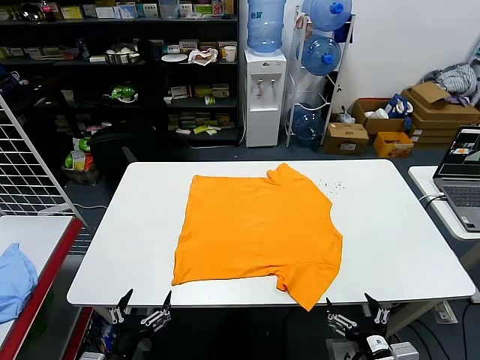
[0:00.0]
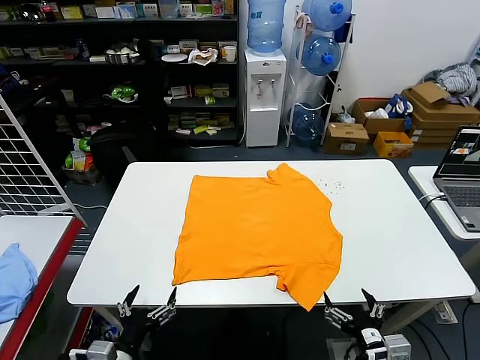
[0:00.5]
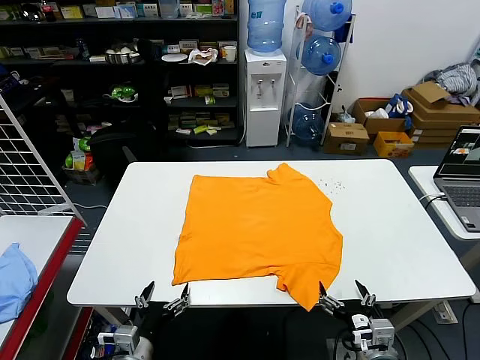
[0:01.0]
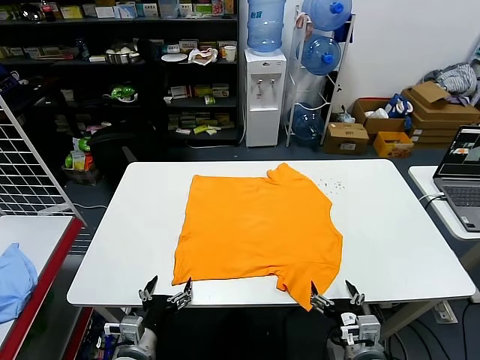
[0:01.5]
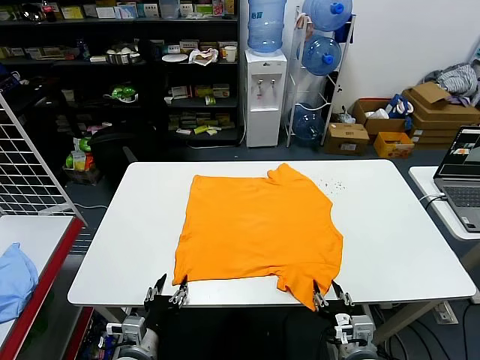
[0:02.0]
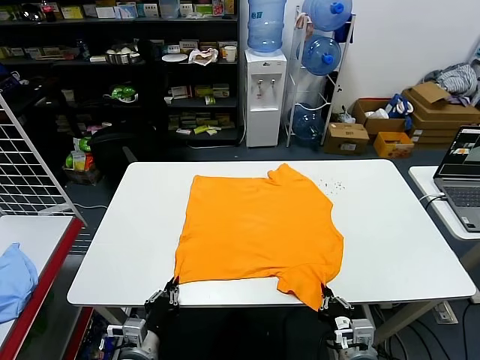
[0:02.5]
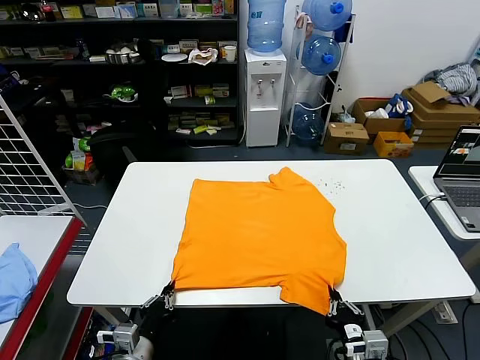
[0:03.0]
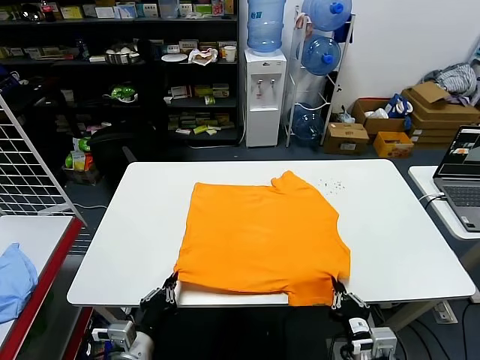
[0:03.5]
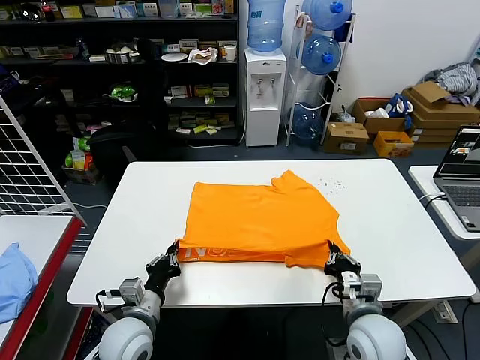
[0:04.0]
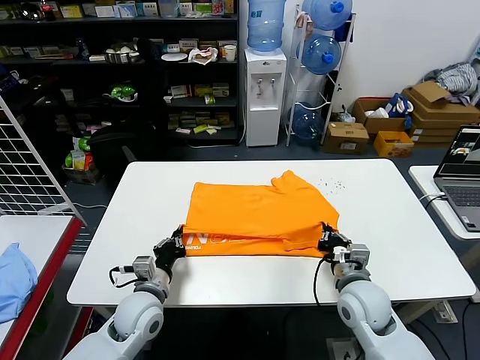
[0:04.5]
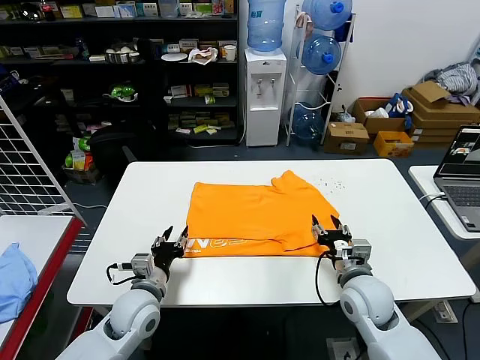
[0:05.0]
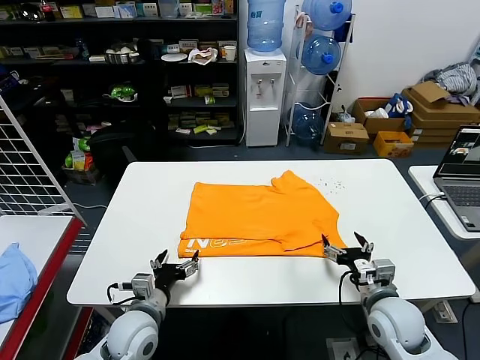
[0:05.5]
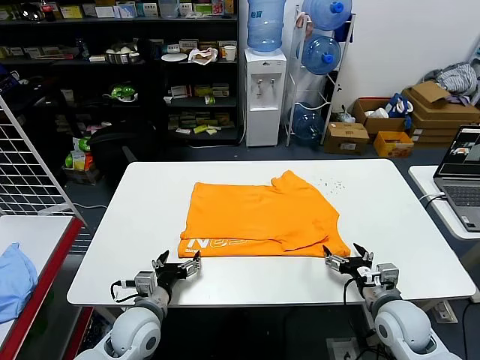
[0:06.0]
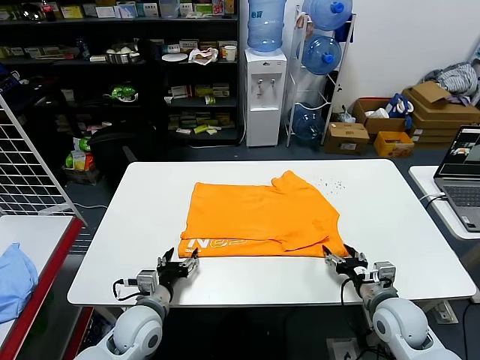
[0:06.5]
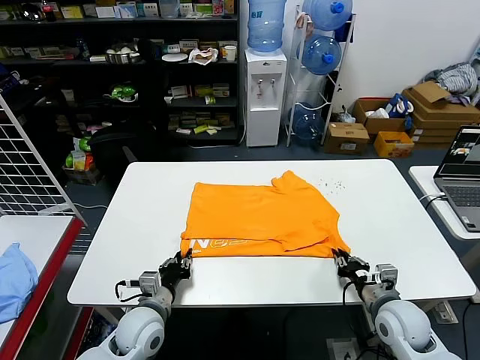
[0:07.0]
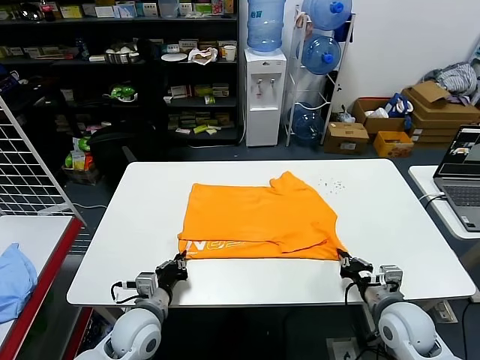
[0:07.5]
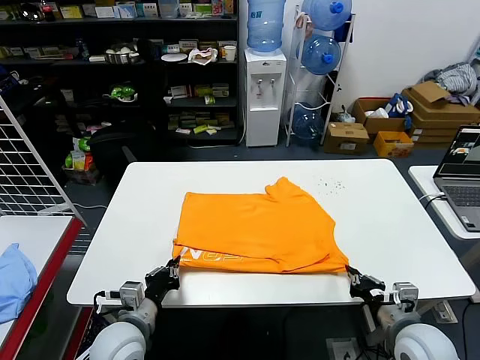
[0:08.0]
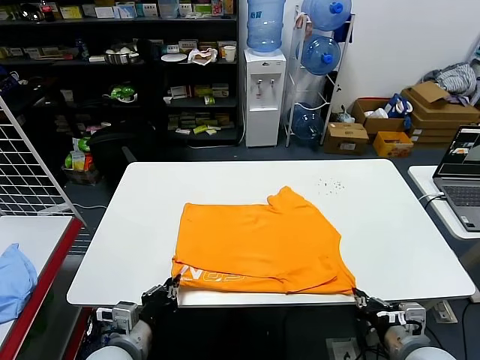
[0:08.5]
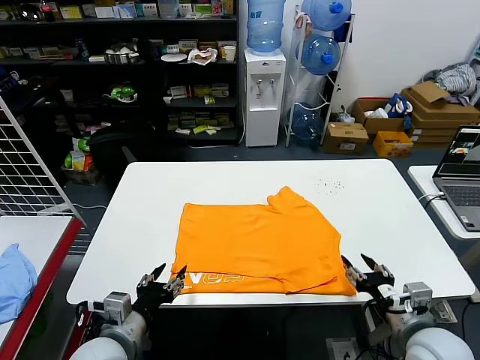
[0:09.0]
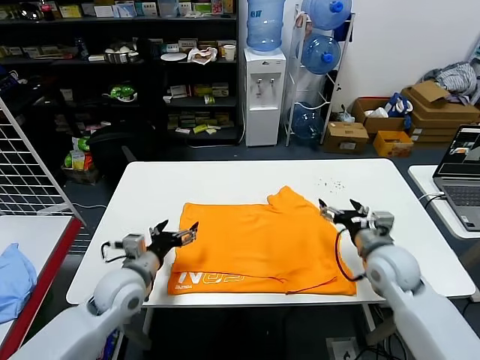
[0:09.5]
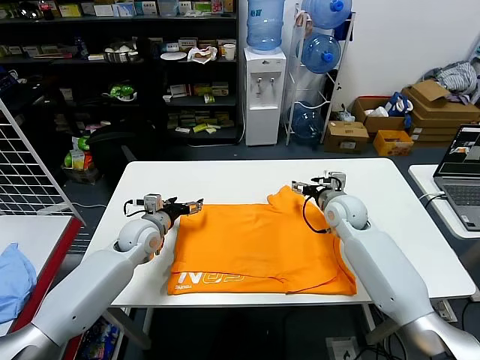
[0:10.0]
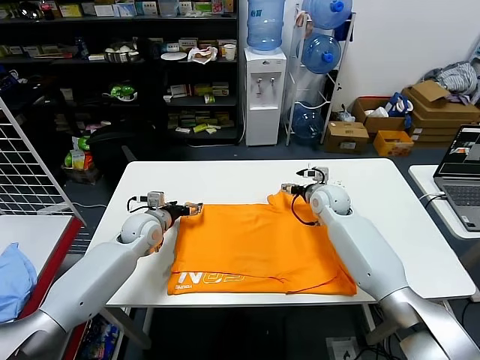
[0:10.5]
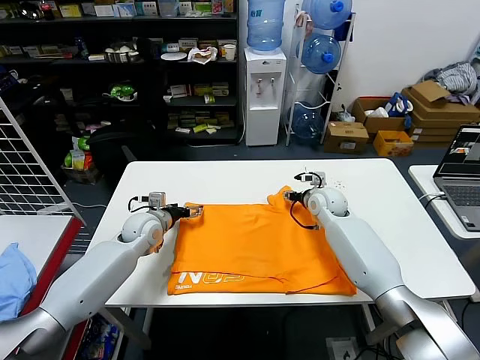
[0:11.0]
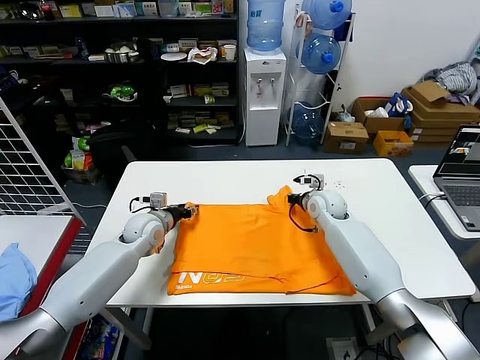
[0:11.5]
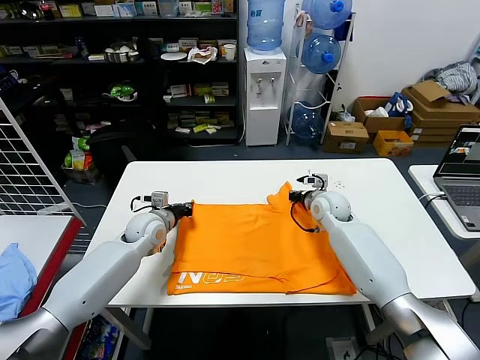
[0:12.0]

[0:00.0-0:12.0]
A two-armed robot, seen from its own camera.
Task of the whole recording: fold and organize the clothes.
Step, 0:00.0 to 0:02.5: use both grippers simultaneously to clamp the lower edge of the clothing fabric.
Step, 0:03.0 to 0:04.5: use both grippers to drag the lower edge of the fabric forward and fold it over the upper edge.
Step, 0:05.0 to 0:08.5: Drag the clothes downward with both gripper.
Step, 0:09.0 to 0:11.5: use both grippers simultaneously to clamp the upper edge of the clothing fabric.
0:02.0 to 0:04.0: The grippers both shift forward by about 10 cm. The right gripper closes its fingers; the left gripper closes its fingers.
0:04.0 to 0:06.0: The left gripper opens. Meanwhile the right gripper moves to the right, roughly 10 cm, and opens its fingers.
0:06.0 to 0:08.0: The right gripper is displaced backward by about 5 cm, and closes up. The left gripper ends up some 5 cm from where it was, and closes.
0:08.0 to 0:10.0: Both grippers travel together forward, roughly 25 cm. The left gripper opens up; the right gripper opens its fingers.
0:10.0 to 0:12.0: The left gripper closes its fingers. The right gripper closes.

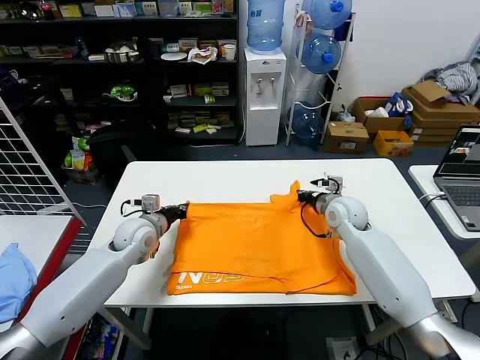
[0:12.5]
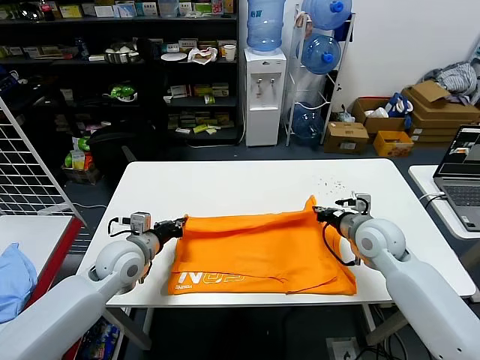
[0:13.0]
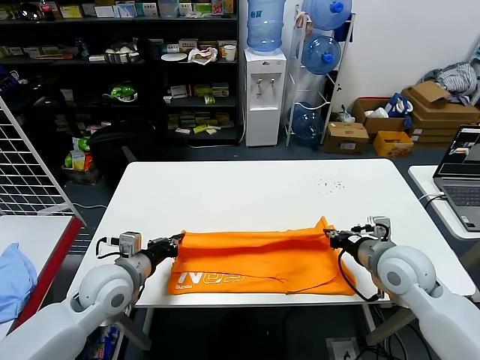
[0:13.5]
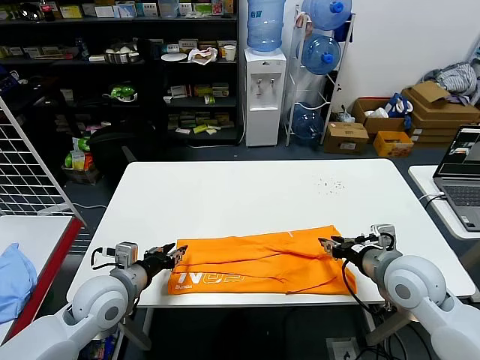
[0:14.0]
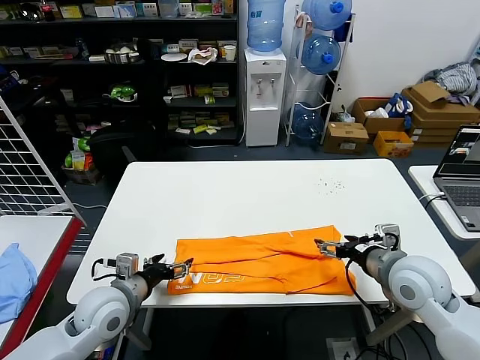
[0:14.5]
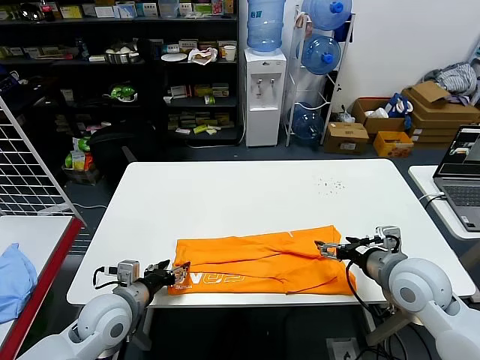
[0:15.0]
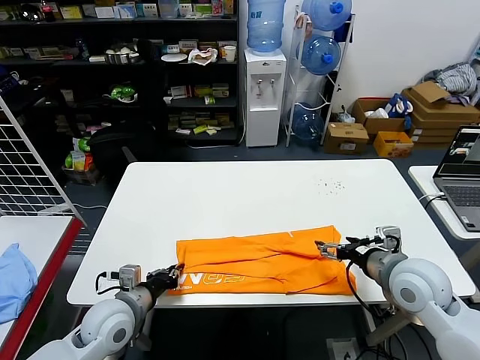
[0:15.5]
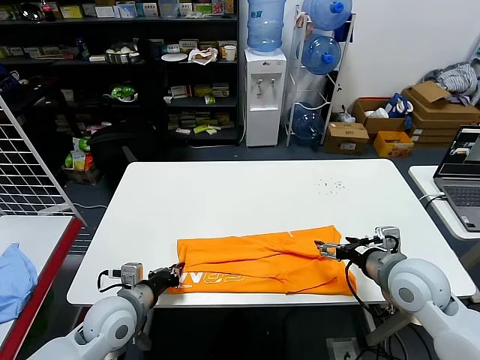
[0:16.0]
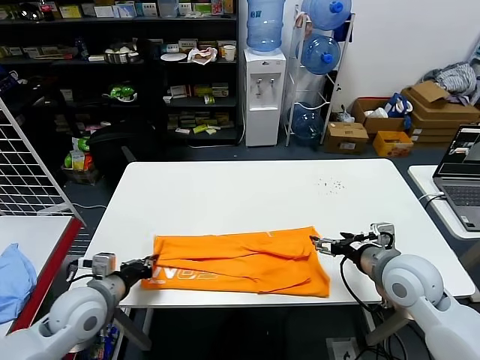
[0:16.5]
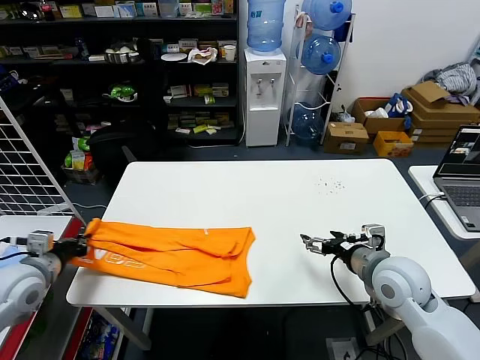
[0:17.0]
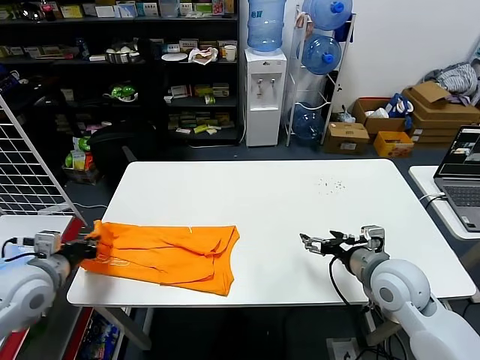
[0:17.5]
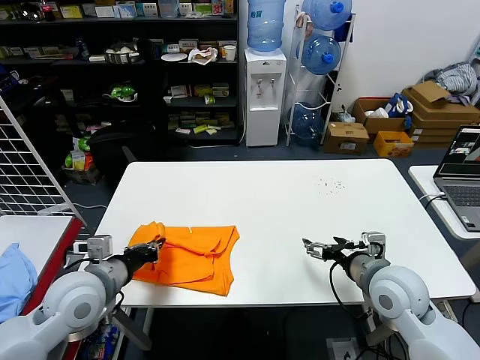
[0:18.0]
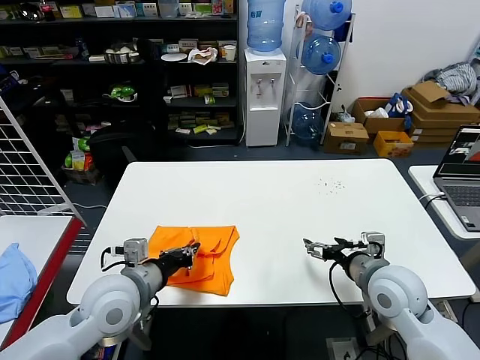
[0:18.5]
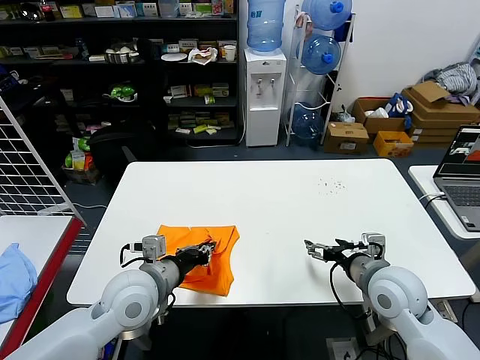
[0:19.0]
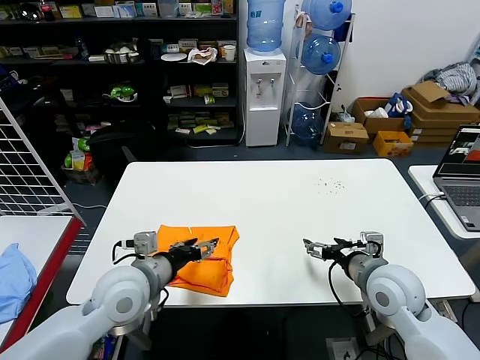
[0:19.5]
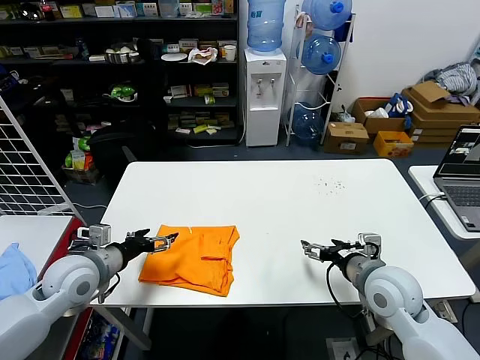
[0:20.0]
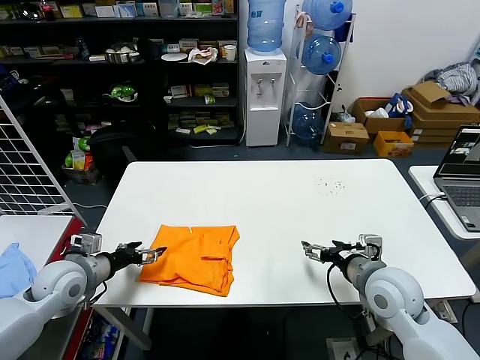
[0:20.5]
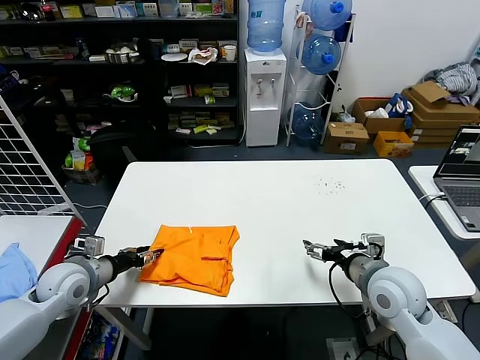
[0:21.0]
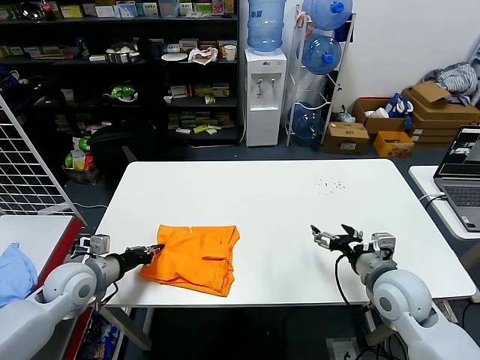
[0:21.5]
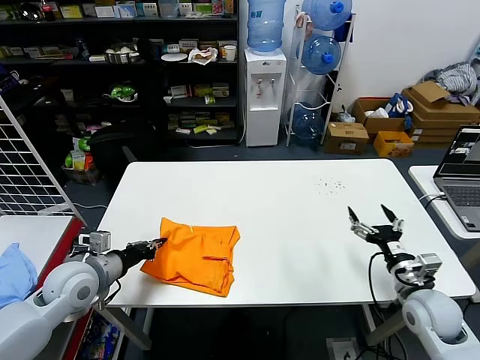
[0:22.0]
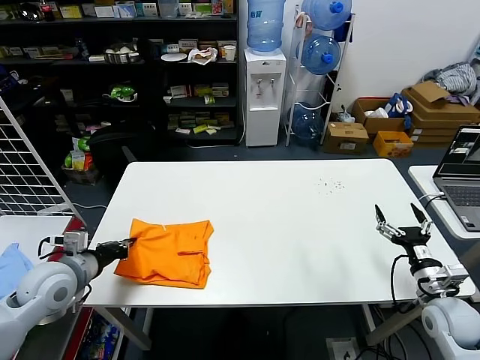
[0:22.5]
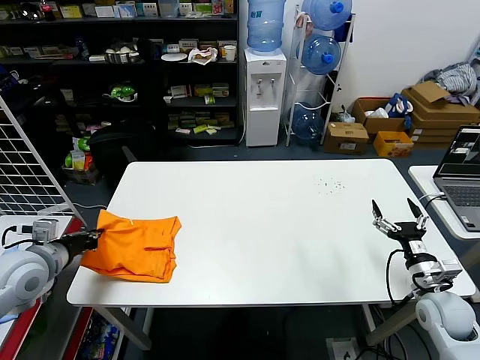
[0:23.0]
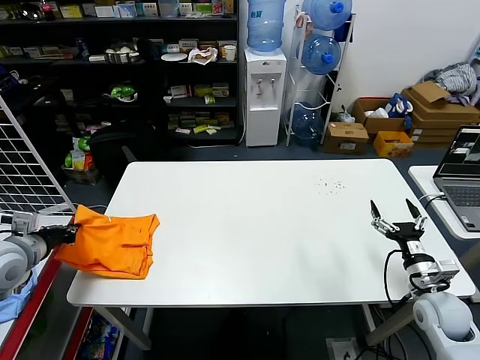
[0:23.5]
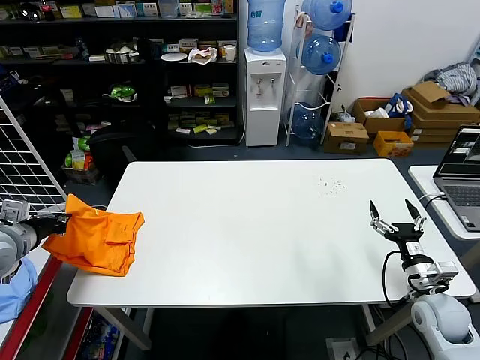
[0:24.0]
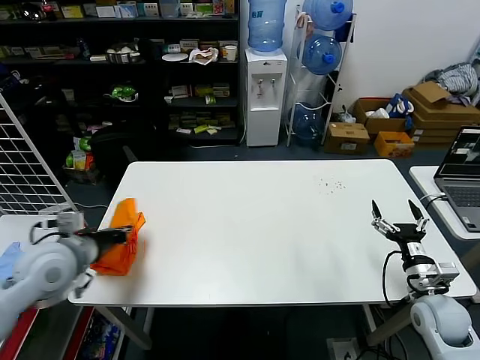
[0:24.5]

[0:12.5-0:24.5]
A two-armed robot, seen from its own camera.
Task of the whole recording: fold and organize the clothes.
Step, 0:12.5 to 0:13.5: use both grippers to drag the upper edge of the fabric backward and fold it over the lower edge.
Step, 0:14.0 to 0:15.5: use the left gripper to clamp the left edge of the fabric.
Step, 0:16.0 to 0:19.0: use the left gripper to drag the left edge of the fabric to the left and folds it over the right edge.
0:12.5 to 0:14.5: The grippers both shift backward by roughly 20 cm. The left gripper opens up. The right gripper opens up.
0:14.5 to 0:16.5: The left gripper closes its fingers.
0:16.5 to 0:18.5: The left gripper is displaced to the right and upward by some 10 cm.
0:18.5 to 0:20.5: The left gripper goes approximately 15 cm to the left and downward, and opens its fingers.
0:20.5 to 0:22.5: The right gripper heads to the right and downward, covering some 15 cm; the left gripper closes.
0:22.5 to 0:24.5: The left gripper is displaced upward by about 5 cm, and goes to the left and returns, roughly 10 cm each way.

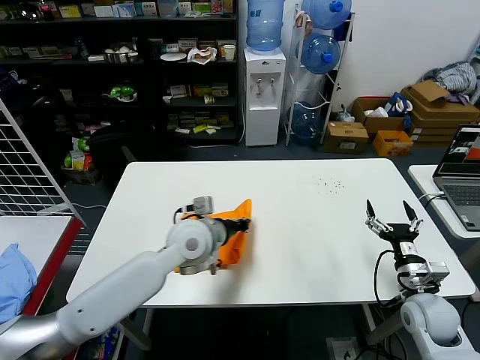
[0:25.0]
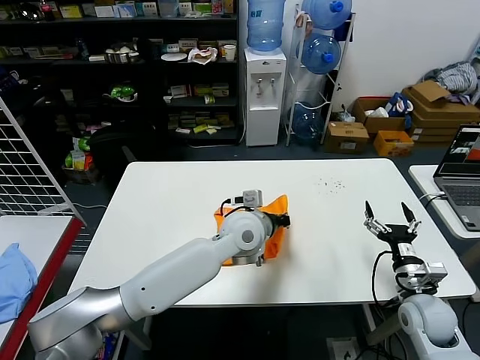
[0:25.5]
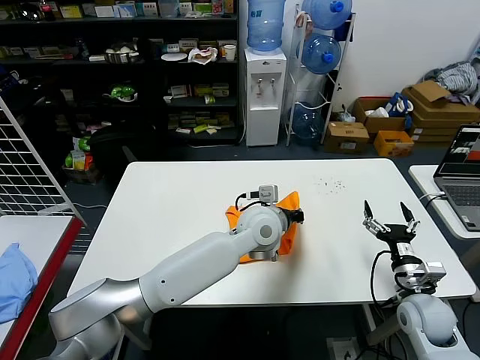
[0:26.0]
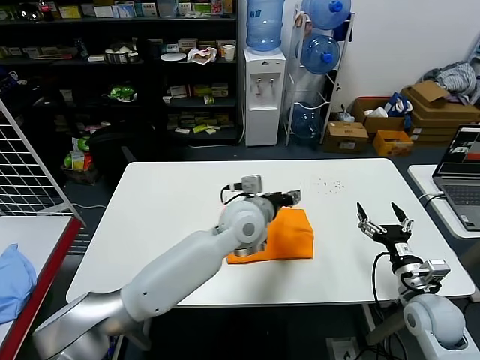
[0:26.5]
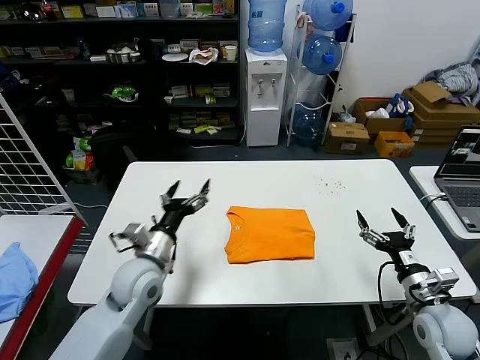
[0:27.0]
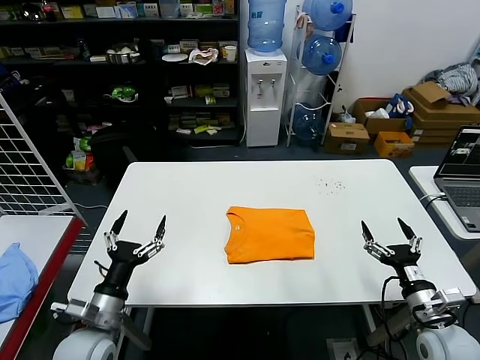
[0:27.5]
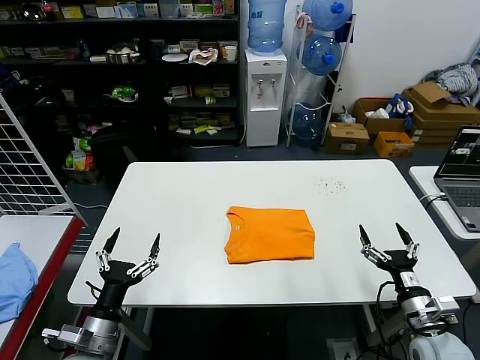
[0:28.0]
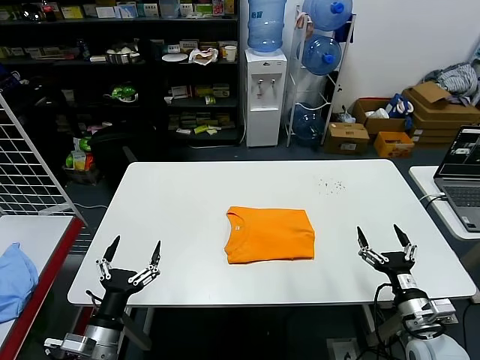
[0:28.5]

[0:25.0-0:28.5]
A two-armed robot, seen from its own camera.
Task of the whole recording: fold and organize the clothes.
0:25.0 to 0:27.0: The left gripper reaches roughly 15 cm to the right, then returns, and opens its fingers.
0:27.0 to 0:28.5: The left gripper is displaced backward and to the left by about 20 cm, while the right gripper changes place by about 5 cm.
